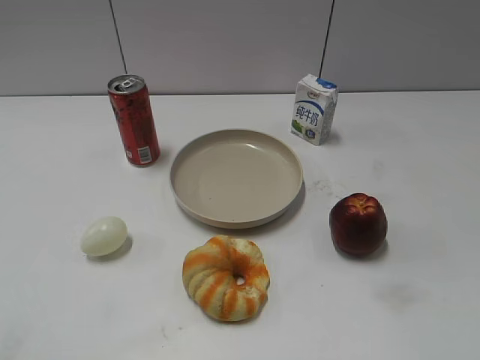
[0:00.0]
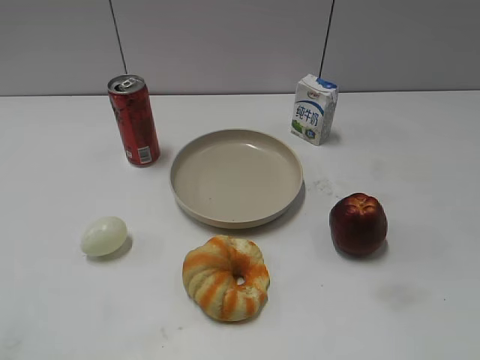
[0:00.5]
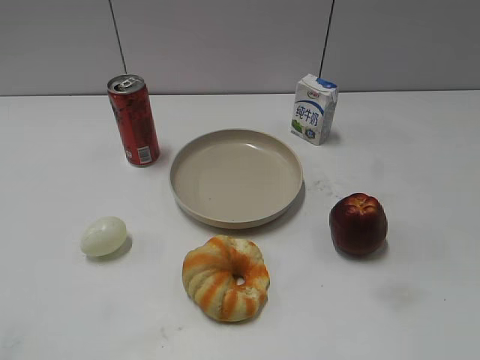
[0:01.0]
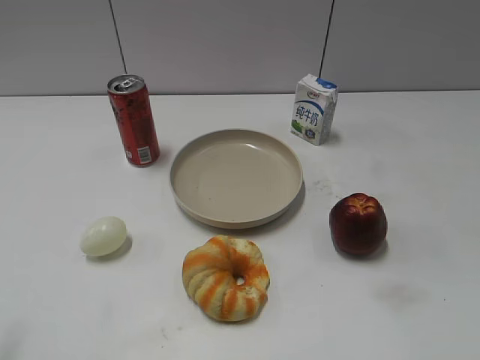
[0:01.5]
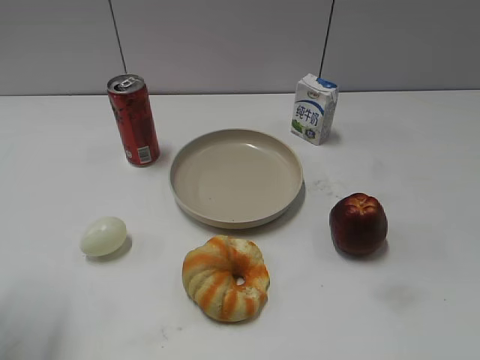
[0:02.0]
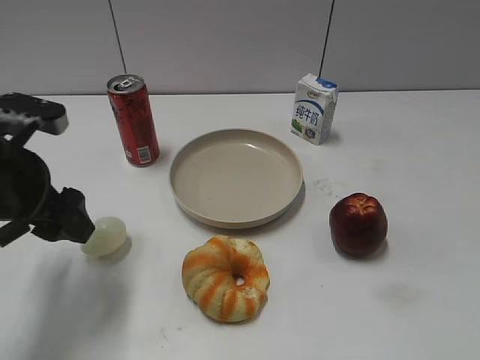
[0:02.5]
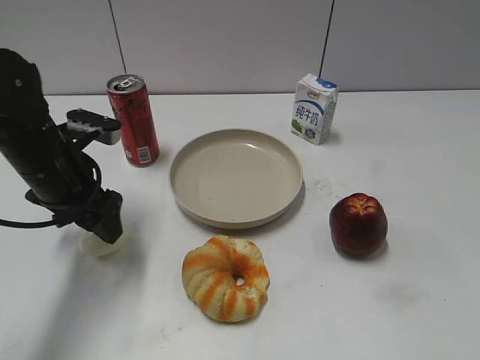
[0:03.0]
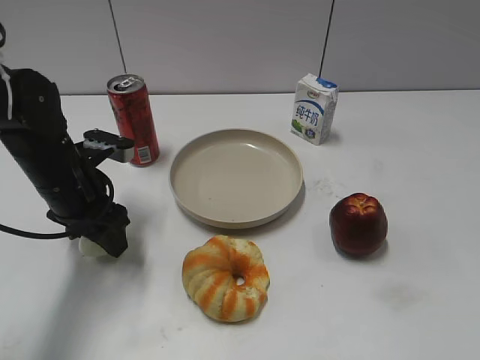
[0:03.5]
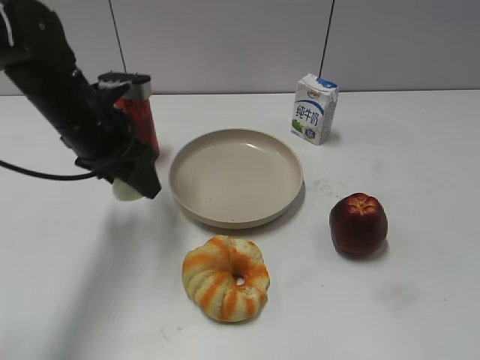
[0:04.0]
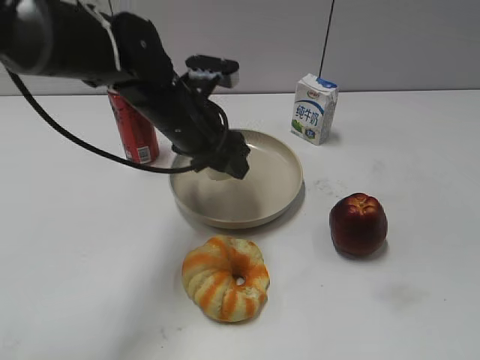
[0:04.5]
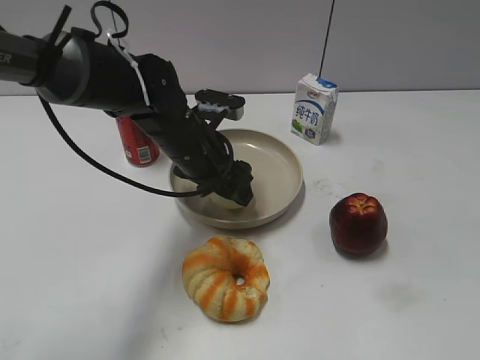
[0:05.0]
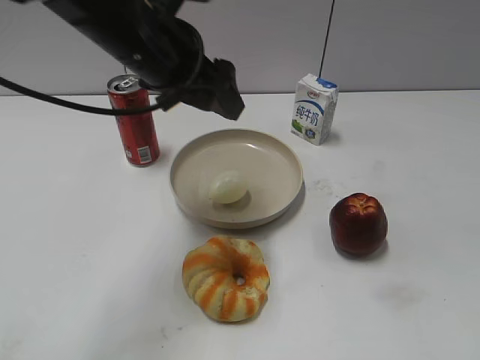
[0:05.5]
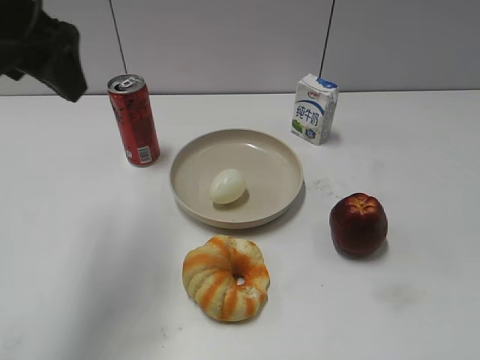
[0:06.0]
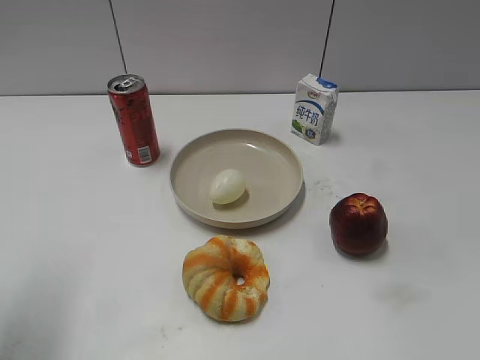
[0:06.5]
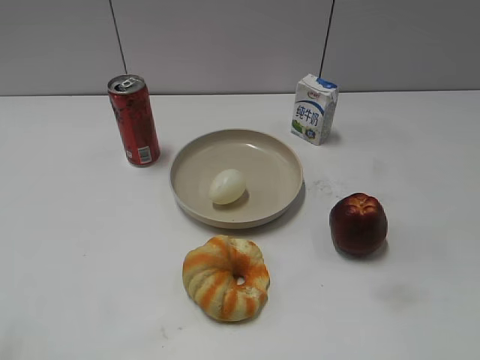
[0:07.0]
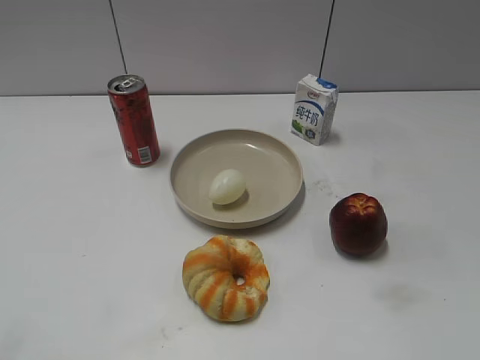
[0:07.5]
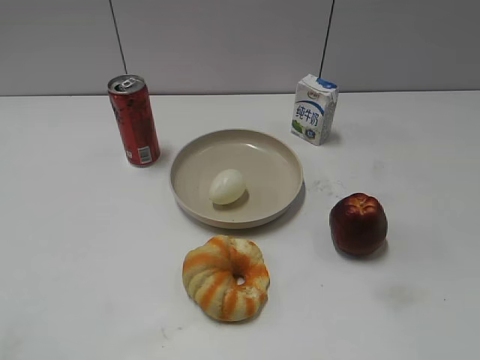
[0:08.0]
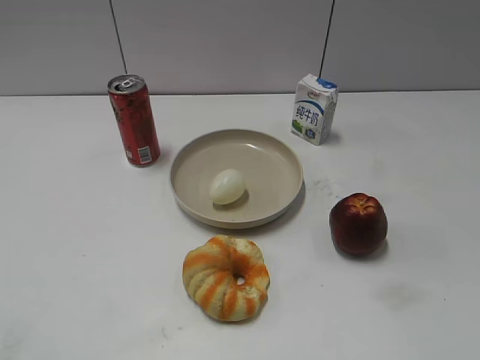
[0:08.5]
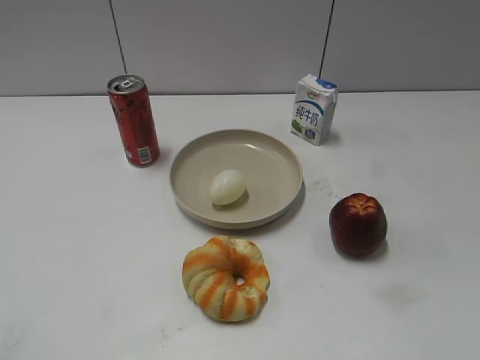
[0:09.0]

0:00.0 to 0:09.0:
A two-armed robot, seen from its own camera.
Step, 0:01.5 to 0:03.5: Grasp the egg with left gripper.
Step, 0:04.0 to 0:05.0: Place the egg on the plate with left gripper.
0:02.0 to 0:04.5: The left gripper shifts approximately 30 cm to the right and forward, and closes.
0:04.5 to 0:07.0: The left gripper goes roughly 40 cm backward and to the left, and opens up.
